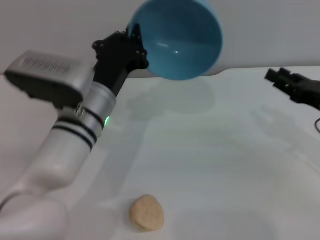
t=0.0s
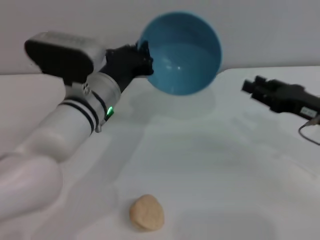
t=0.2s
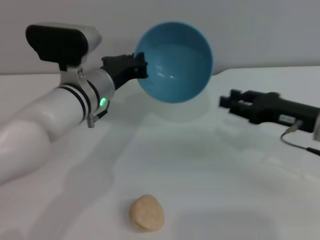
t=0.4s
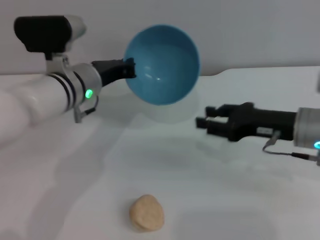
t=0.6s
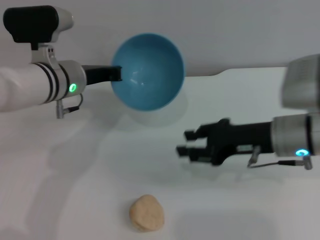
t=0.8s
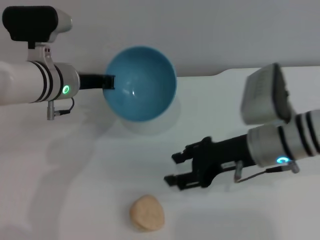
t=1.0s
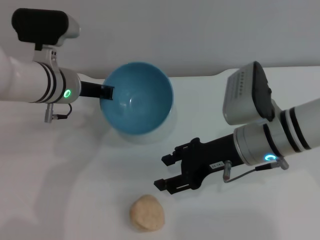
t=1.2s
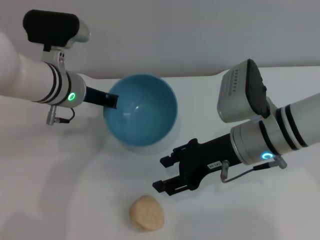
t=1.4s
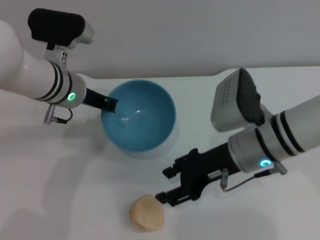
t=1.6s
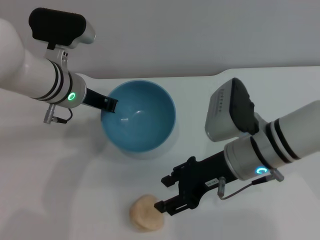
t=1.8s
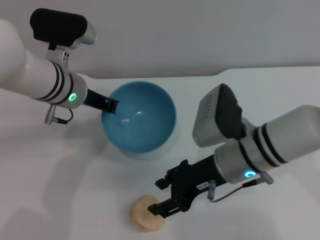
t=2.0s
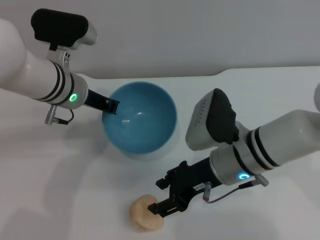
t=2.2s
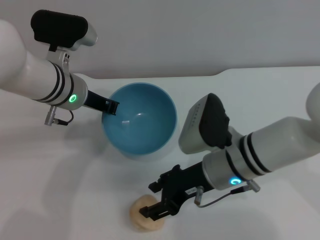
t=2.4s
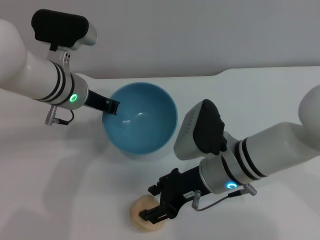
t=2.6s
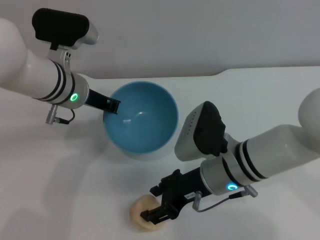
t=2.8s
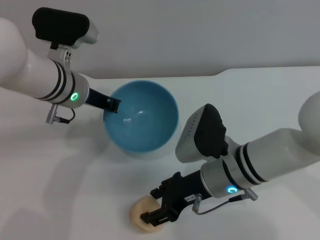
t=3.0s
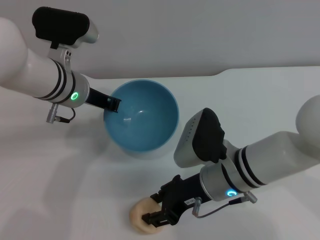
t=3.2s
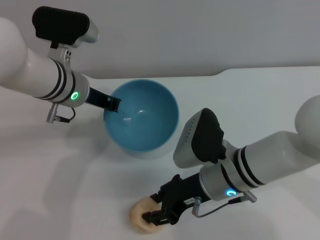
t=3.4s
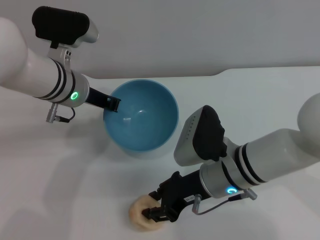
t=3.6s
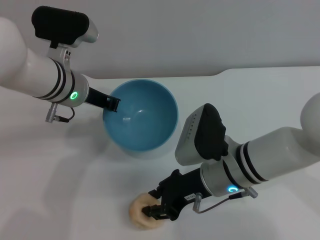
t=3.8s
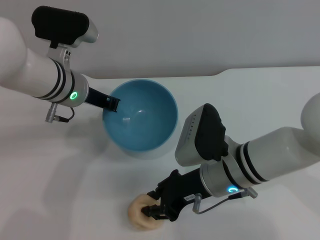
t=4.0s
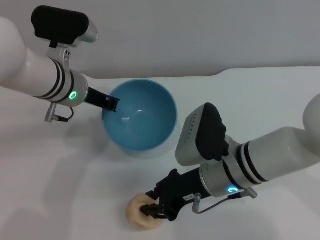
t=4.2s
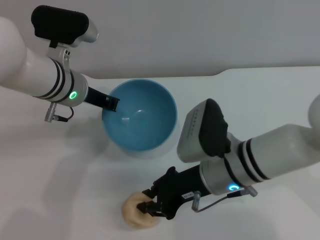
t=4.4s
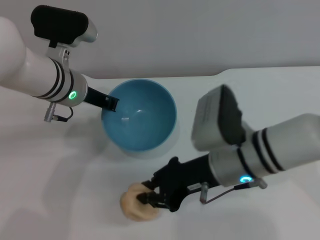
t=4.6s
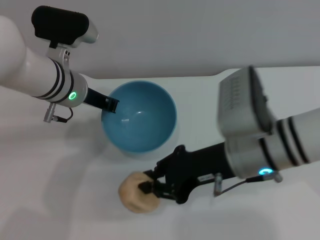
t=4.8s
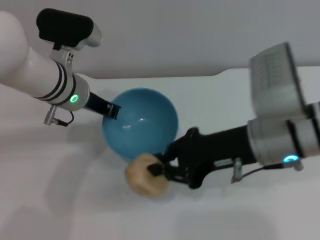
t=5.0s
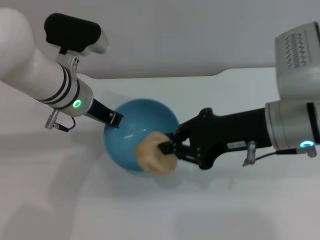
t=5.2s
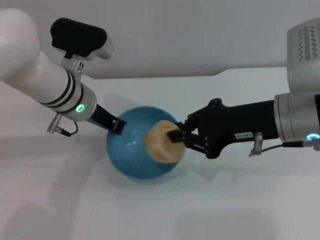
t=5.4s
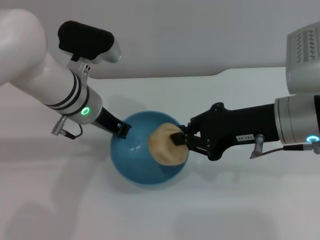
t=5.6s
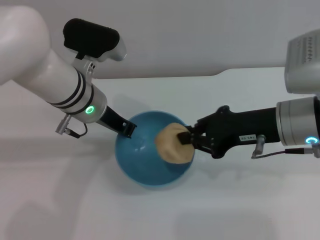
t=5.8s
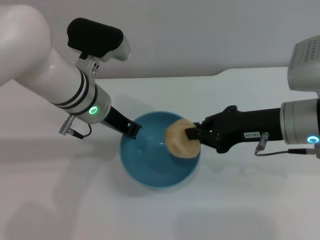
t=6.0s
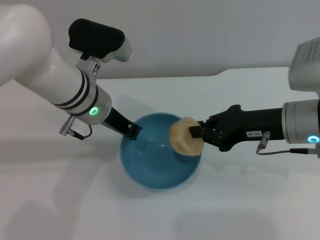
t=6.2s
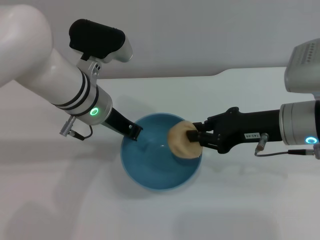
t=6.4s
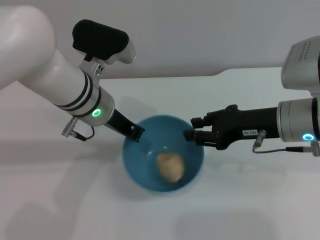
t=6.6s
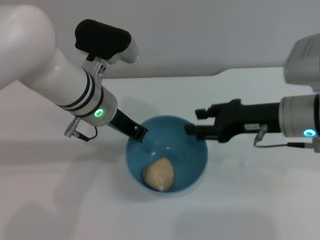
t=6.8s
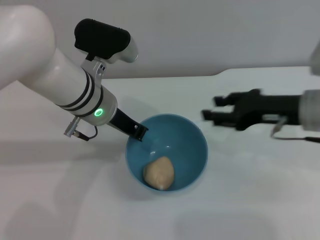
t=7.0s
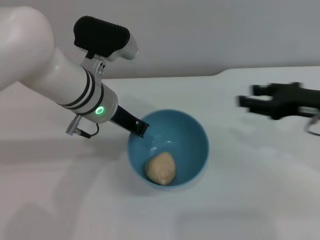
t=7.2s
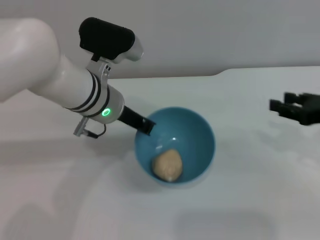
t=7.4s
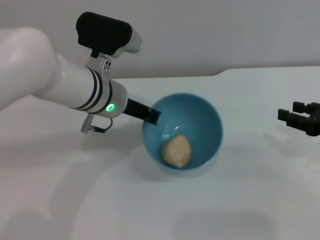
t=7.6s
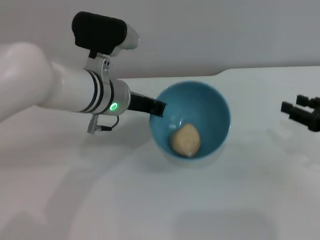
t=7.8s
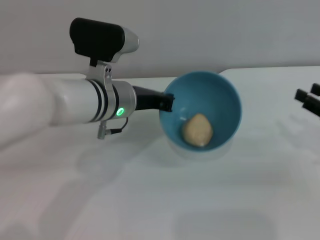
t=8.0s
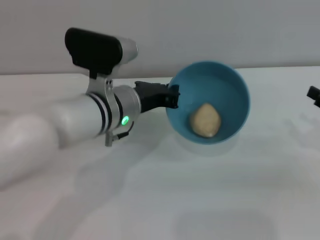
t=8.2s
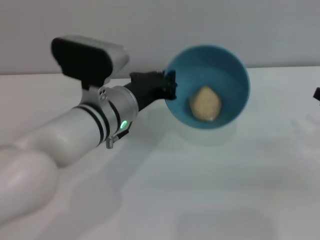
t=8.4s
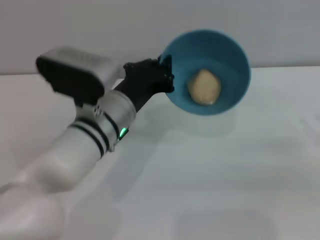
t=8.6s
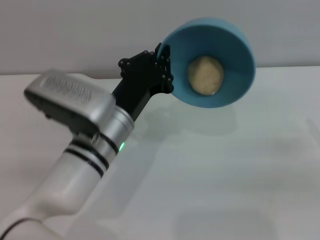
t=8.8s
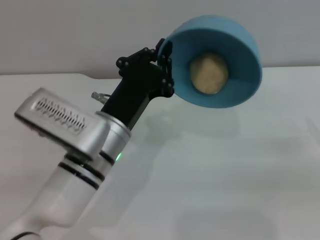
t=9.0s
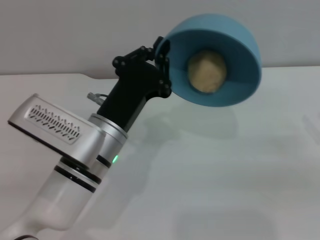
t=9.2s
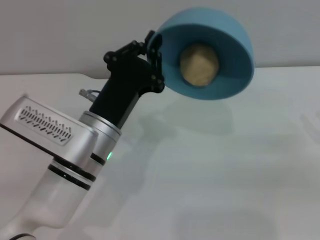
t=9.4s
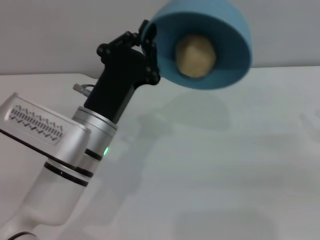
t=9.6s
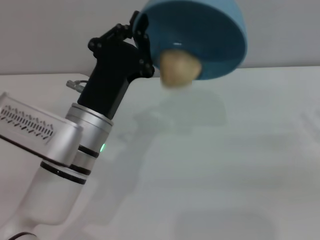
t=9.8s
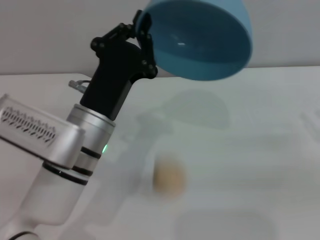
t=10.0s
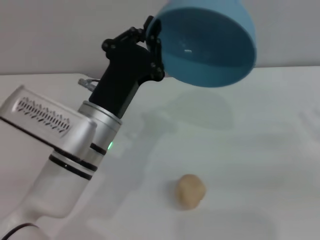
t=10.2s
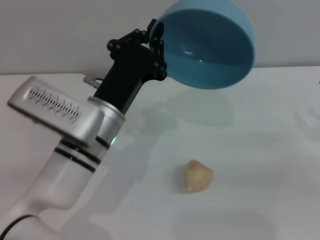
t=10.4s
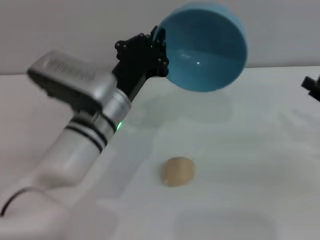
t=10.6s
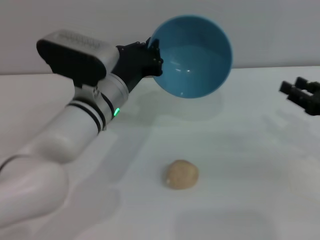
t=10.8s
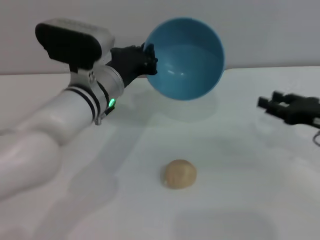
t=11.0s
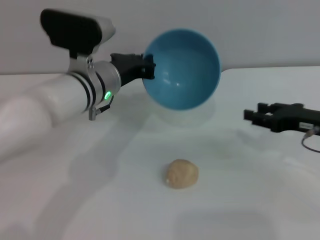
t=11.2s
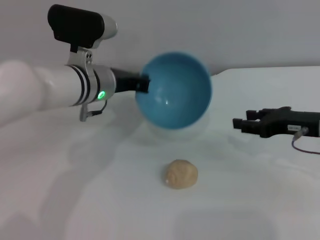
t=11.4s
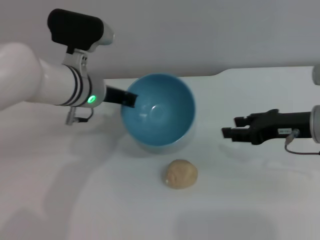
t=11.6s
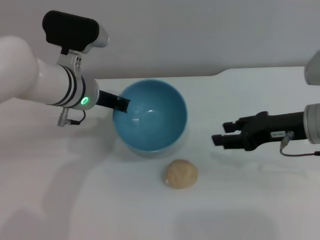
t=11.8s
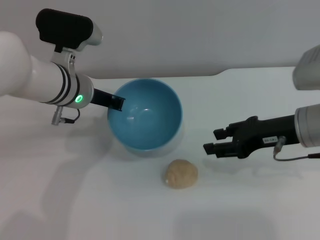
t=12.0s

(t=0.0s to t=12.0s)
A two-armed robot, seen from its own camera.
Task of the whole recording: put the egg yolk pastry into the blue bowl and pour it out repeatedly.
Step, t=0.0s - t=5.0s: Pick up the egg yolk pastry with the right gripper.
Step, t=5.4s - t=6.8s: Place the egg yolk pastry into the bowl.
Step, t=7.0s - t=10.0s: Pour the egg yolk pastry out of bowl.
t=0.0s - t=1.6s: The right gripper heads to the left, covering some 15 cm. The left gripper moves forward and to the left, about 10 cm.
t=1.6s - t=3.0s: The right gripper travels downward by some 5 cm.
t=3.0s - t=4.4s: The right gripper closes.
t=4.4s - t=6.0s: The right gripper travels to the right and upward by some 10 cm, and closes its fingers.
t=6.0s - t=7.6s: The right gripper moves to the right, some 15 cm, and opens up.
t=7.6s - t=9.0s: The right gripper travels to the right by approximately 5 cm, while the left gripper moves backward, some 10 cm.
t=10.4s - t=12.0s: The left gripper moves forward, roughly 10 cm; the right gripper shifts about 15 cm to the left.

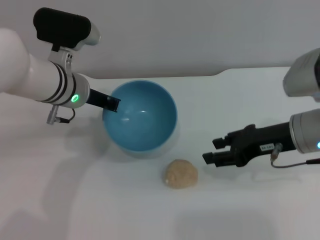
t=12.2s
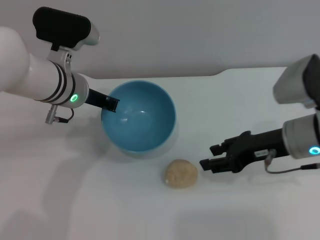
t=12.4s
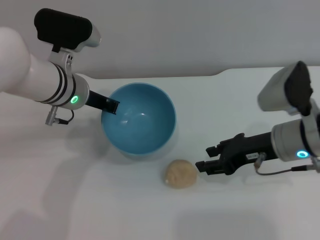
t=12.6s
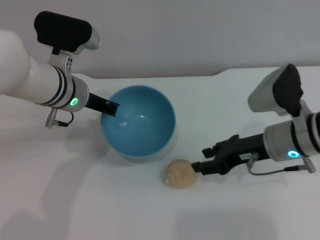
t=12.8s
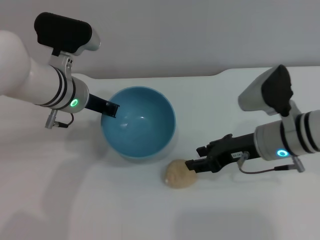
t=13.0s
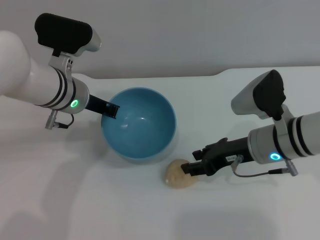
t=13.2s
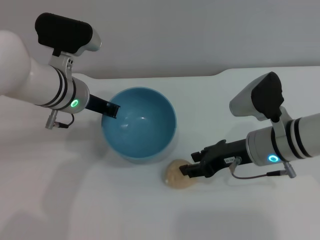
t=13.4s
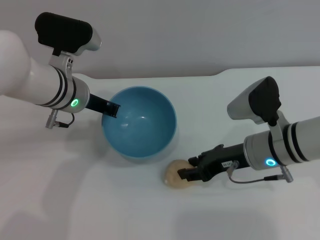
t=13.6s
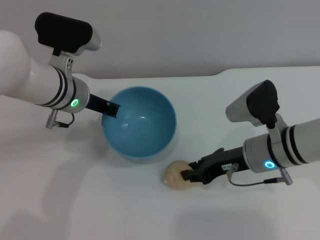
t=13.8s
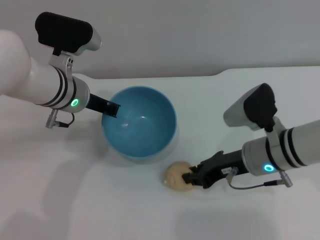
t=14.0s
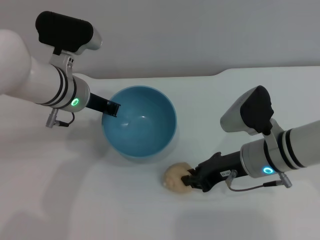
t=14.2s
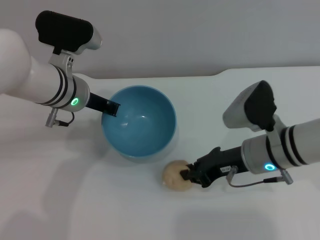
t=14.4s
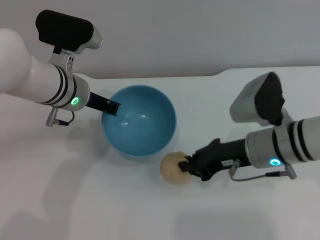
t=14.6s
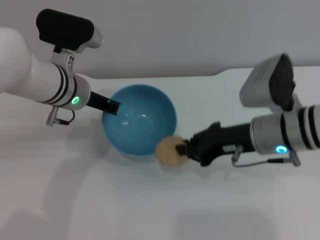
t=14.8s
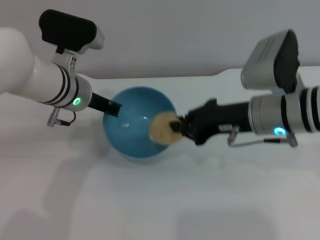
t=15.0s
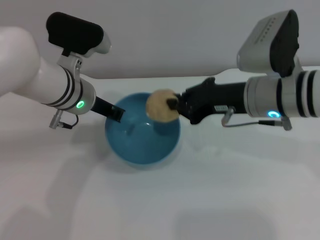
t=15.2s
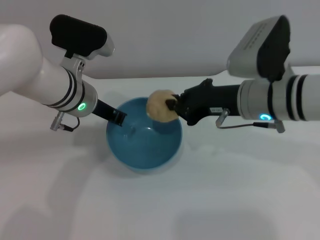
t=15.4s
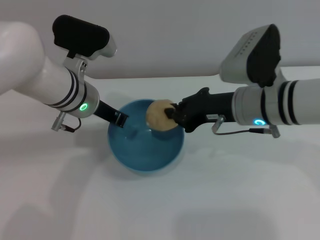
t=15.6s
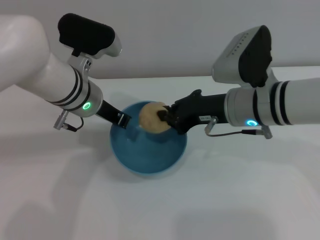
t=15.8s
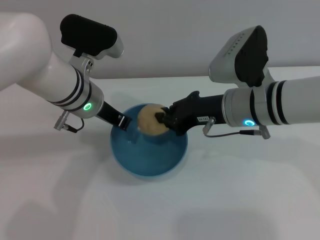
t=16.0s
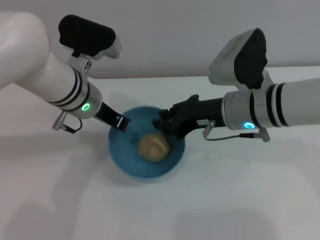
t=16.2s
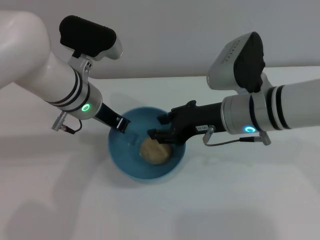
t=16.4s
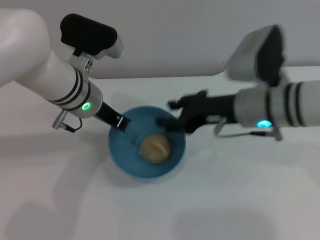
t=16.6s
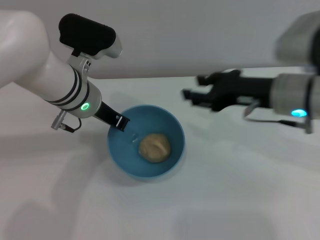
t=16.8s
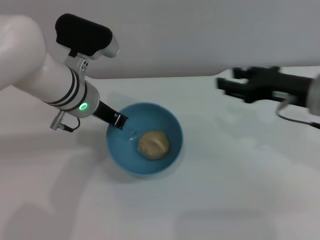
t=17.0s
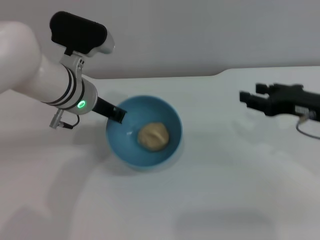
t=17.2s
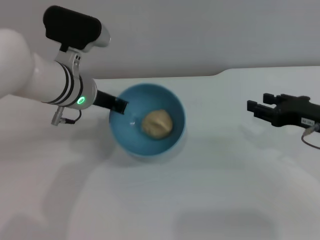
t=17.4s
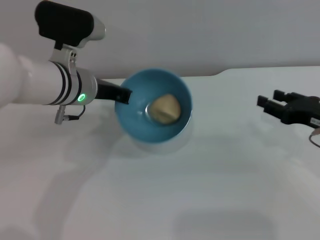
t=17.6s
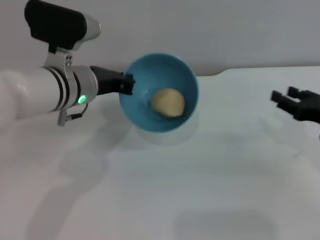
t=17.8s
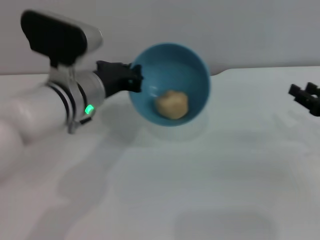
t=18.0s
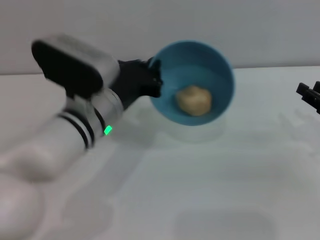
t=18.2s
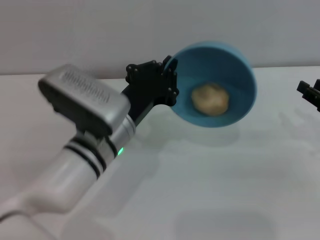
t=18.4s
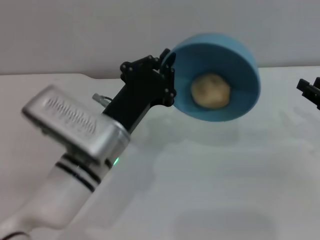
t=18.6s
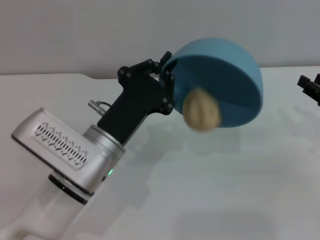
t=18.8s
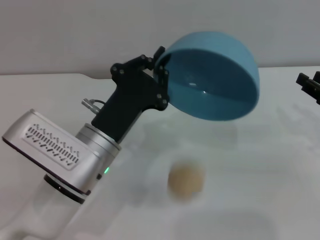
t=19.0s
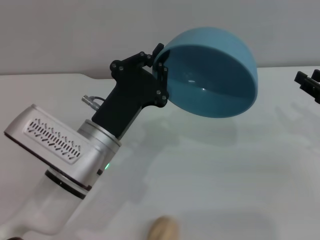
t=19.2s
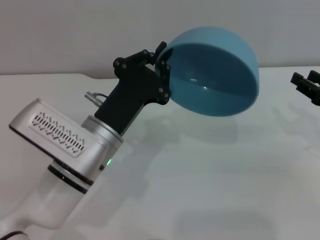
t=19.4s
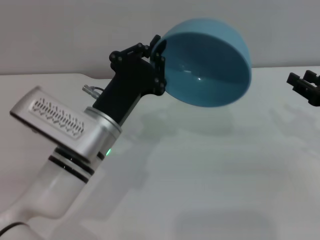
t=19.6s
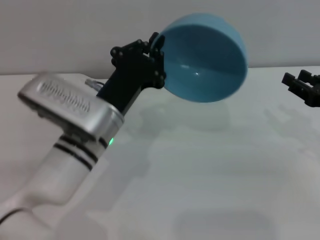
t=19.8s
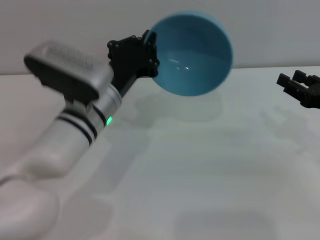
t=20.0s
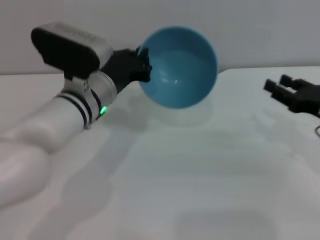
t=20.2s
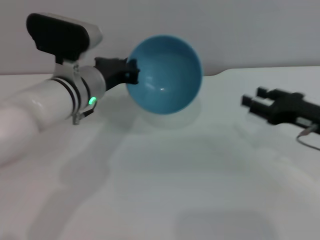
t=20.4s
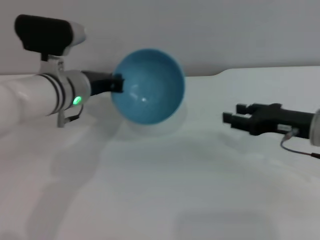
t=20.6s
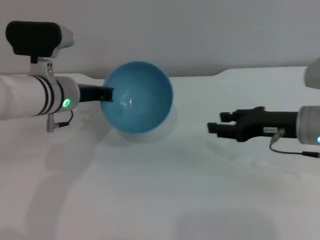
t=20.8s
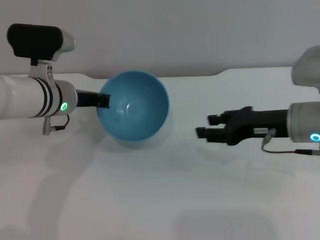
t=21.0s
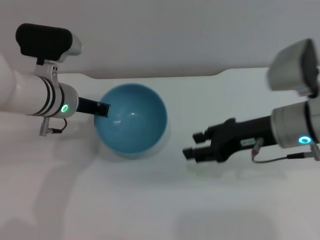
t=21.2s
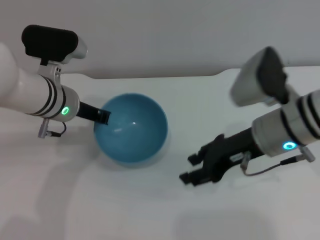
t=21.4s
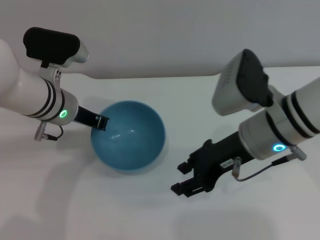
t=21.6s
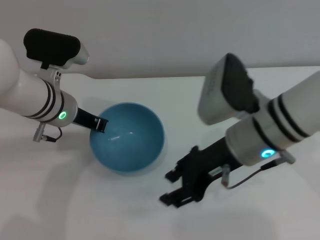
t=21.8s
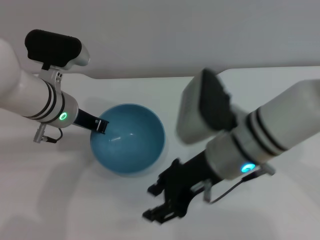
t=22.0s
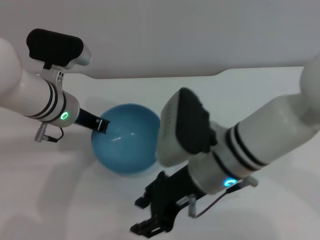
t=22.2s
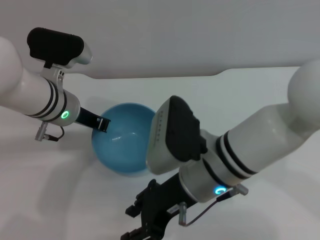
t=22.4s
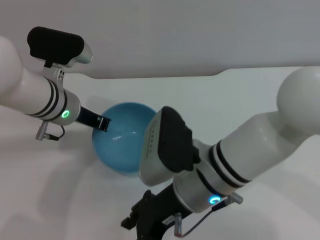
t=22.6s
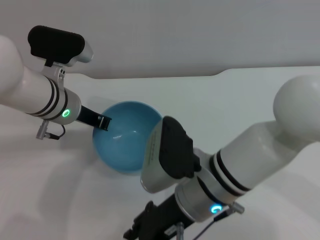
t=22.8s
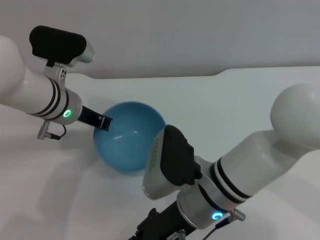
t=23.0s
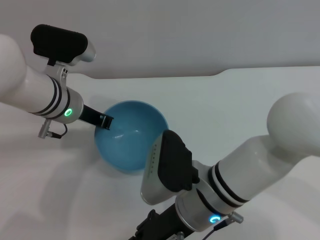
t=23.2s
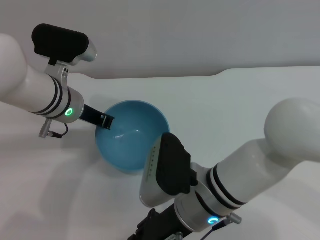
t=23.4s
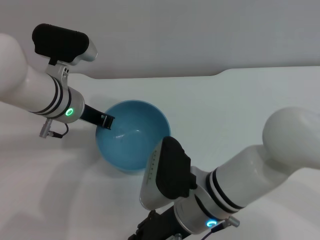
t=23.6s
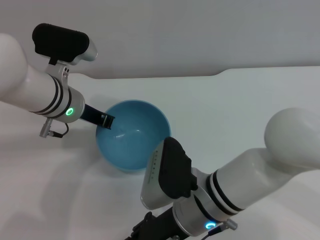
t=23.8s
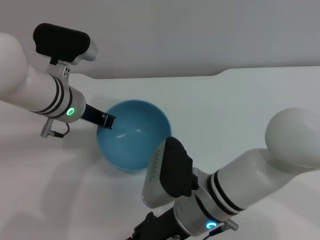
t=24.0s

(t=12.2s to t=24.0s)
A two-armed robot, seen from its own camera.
Task of the whole recording: put the egg yolk pastry into the blue bowl and pour it out repeatedly.
Step, t=12.2s - t=15.0s: Pick up the egg yolk pastry with the right gripper.
Step, t=15.2s - t=16.6s: Place the egg yolk pastry into the bowl.
Step, t=17.0s - t=19.4s: Pour the egg yolk pastry out of bowl.
t=12.2s - t=13.6s: The right gripper is displaced downward by roughly 5 cm.
t=13.6s - t=15.2s: The right gripper goes roughly 10 cm upward, and closes up.
t=15.2s - t=16.6s: The right gripper opens.
t=16.6s - t=18.2s: The left gripper moves backward, about 10 cm; the right gripper goes some 20 cm to the right.
t=19.6s - t=21.0s: The left gripper shifts roughly 15 cm forward and to the left, while the right gripper moves to the left, about 10 cm.
t=21.0s - t=22.6s: The right gripper moves to the left, some 15 cm.
t=22.6s - t=24.0s: The right gripper shifts roughly 5 cm downward.
